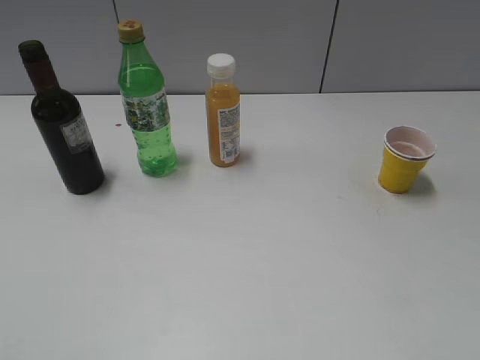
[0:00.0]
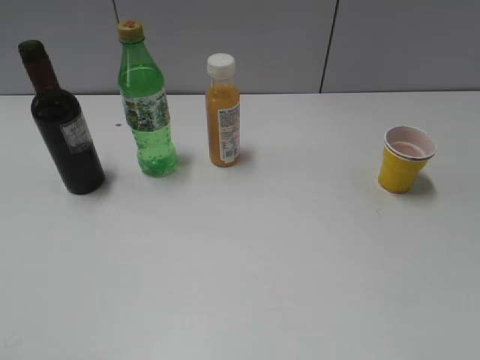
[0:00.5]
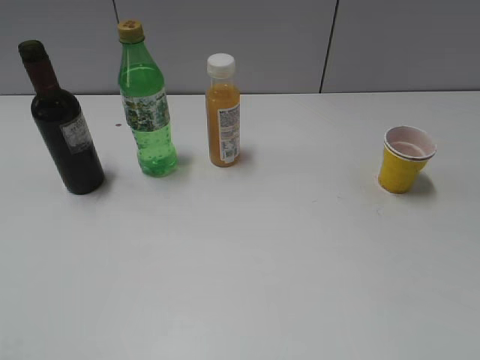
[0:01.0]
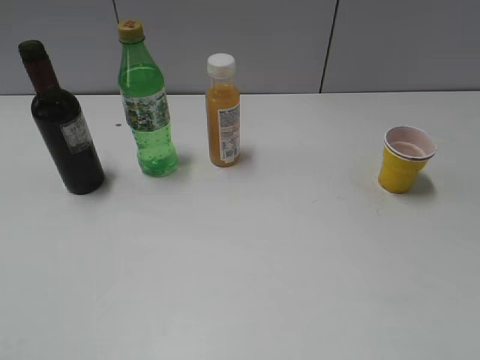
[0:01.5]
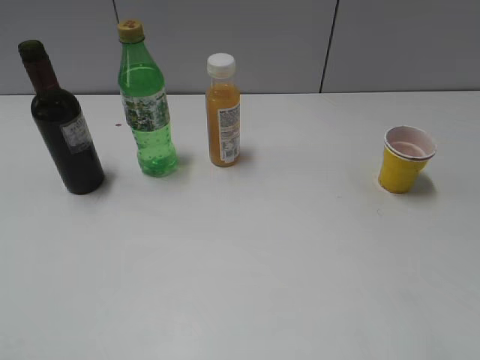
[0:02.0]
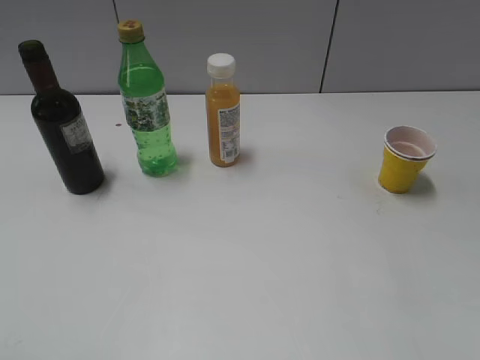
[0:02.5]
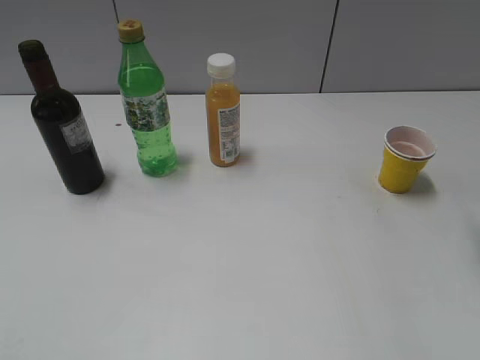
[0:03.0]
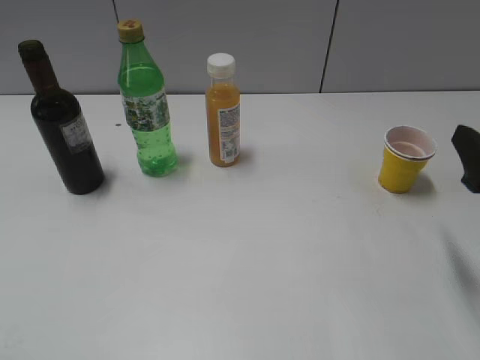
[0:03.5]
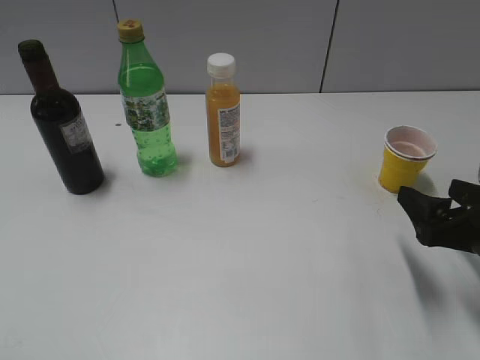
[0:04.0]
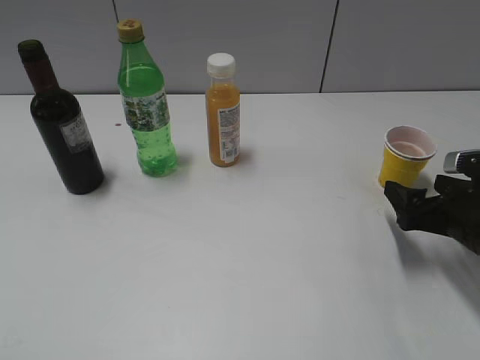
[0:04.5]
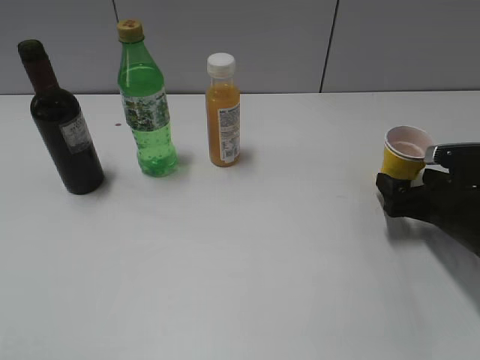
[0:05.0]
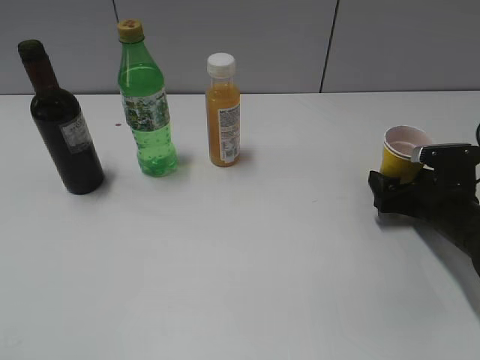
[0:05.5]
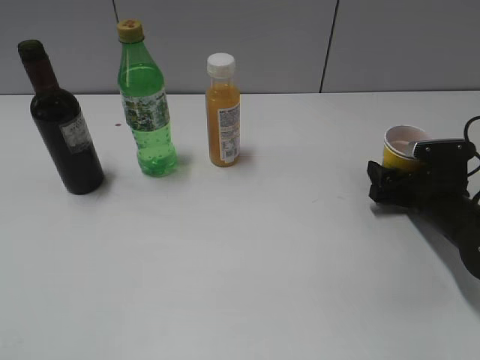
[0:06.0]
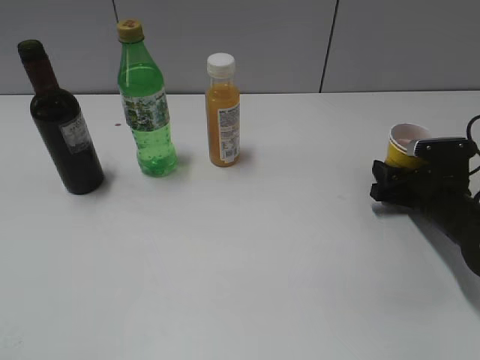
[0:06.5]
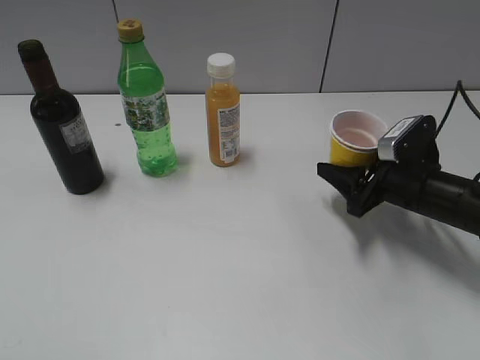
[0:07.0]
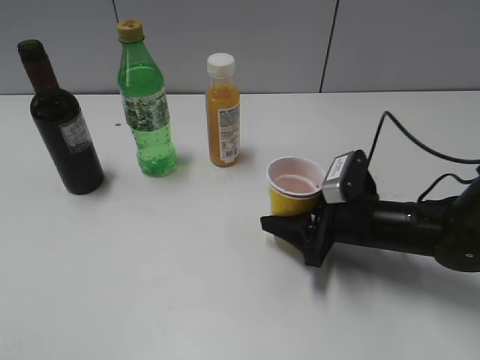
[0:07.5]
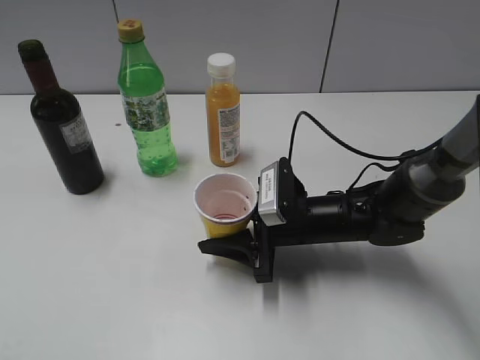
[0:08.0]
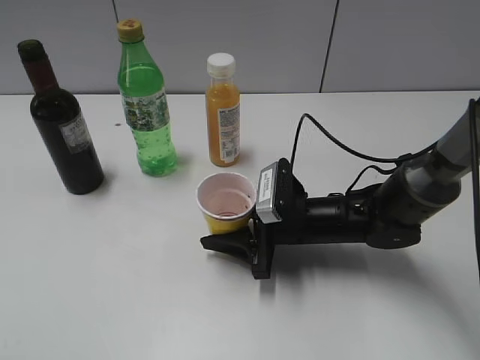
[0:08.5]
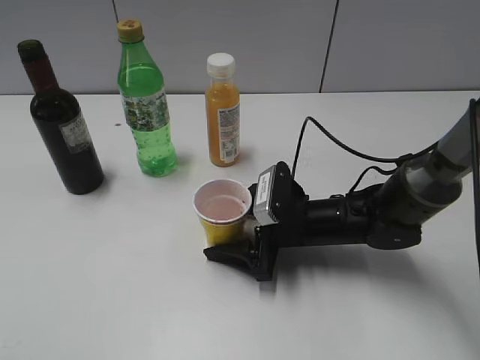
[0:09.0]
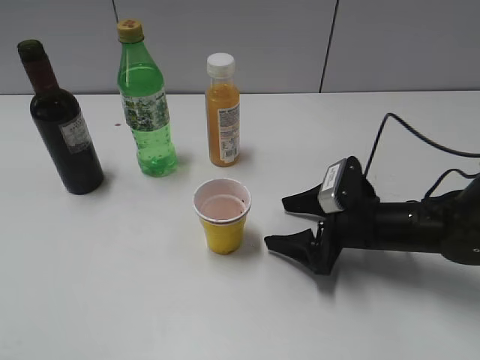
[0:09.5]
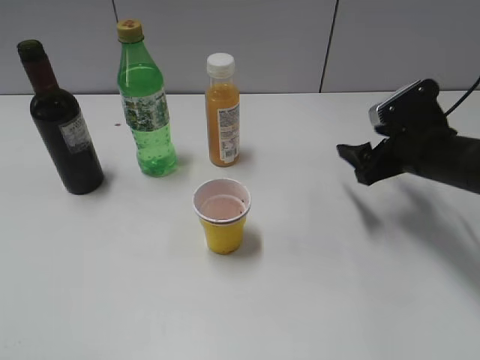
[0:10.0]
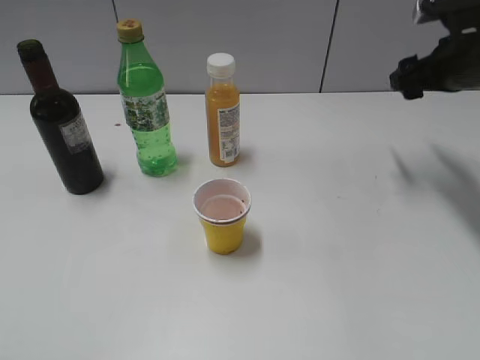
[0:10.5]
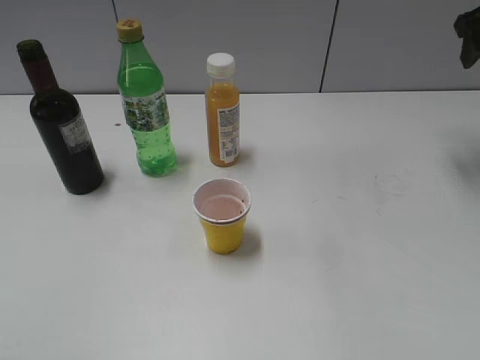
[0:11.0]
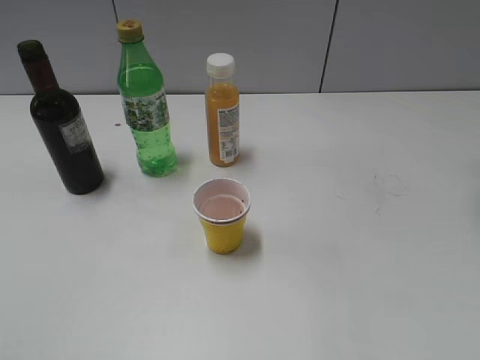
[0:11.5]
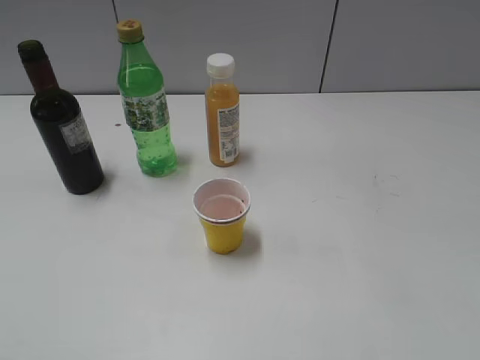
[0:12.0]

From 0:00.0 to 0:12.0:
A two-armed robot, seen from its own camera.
Step, from 0:01.5 to 0:06.0: Grasp the yellow paper cup with right gripper.
Step, from 0:07.0 to 0:09.0: Place the yellow paper cup on the table with right gripper.
From 0:02.0 to 0:04.0: The right gripper heads downward and forward, covering about 25 cm.
From 0:04.0 to 0:06.0: The right gripper is displaced forward and downward by some 15 cm.
From 0:06.0 to 0:08.0: The right gripper shifts some 20 cm to the left, and closes.
From 0:08.0 to 0:10.0: The right gripper travels to the right and upward by some 15 cm, and opens up.
From 0:10.0 to 0:12.0: The right gripper shifts approximately 25 cm upward, backward and to the right.

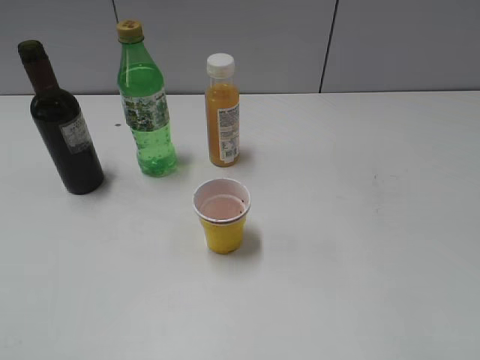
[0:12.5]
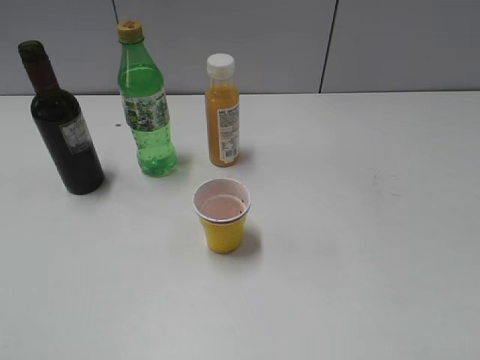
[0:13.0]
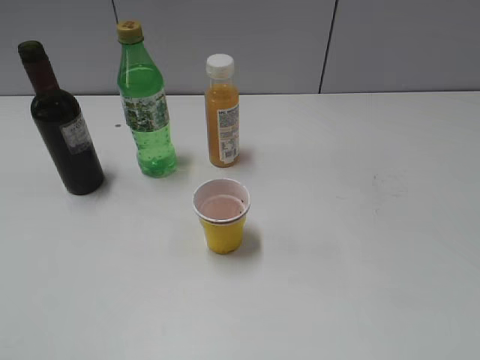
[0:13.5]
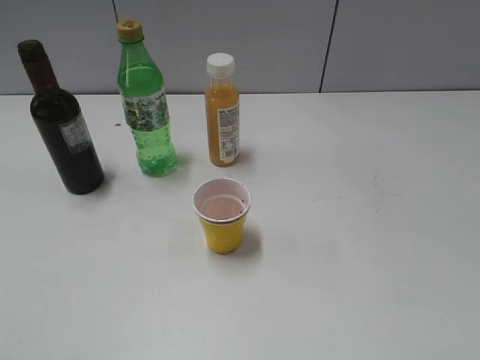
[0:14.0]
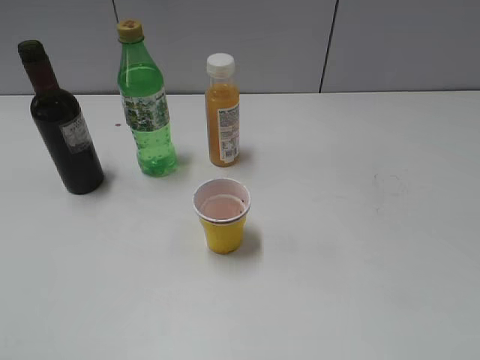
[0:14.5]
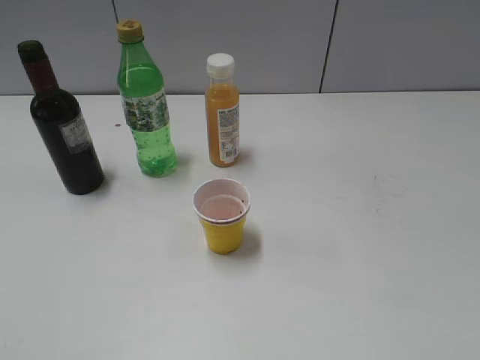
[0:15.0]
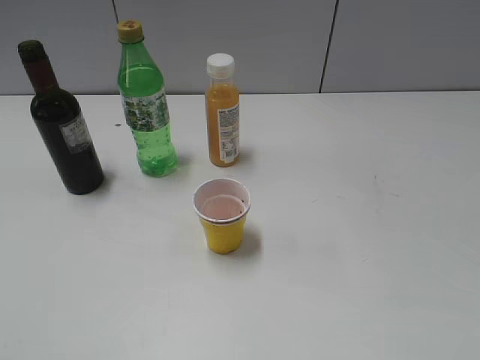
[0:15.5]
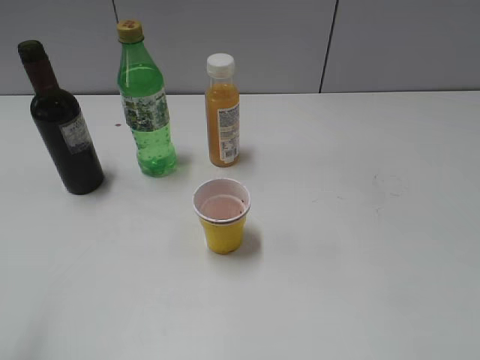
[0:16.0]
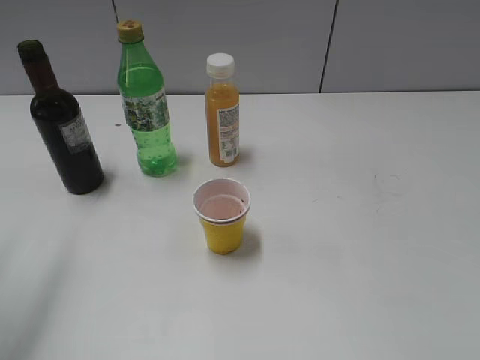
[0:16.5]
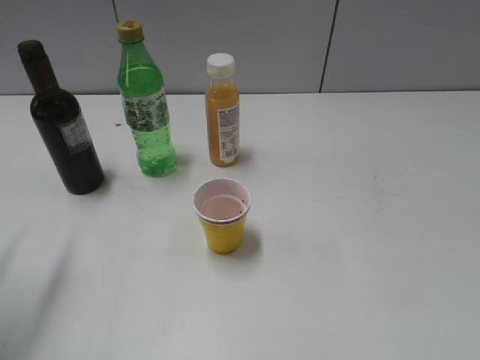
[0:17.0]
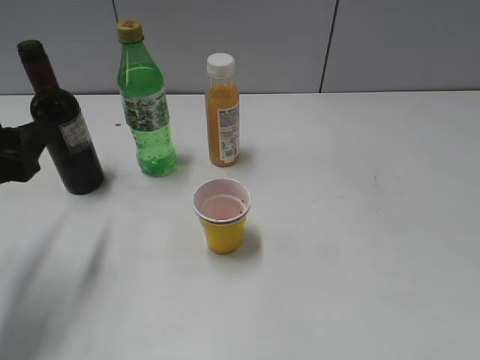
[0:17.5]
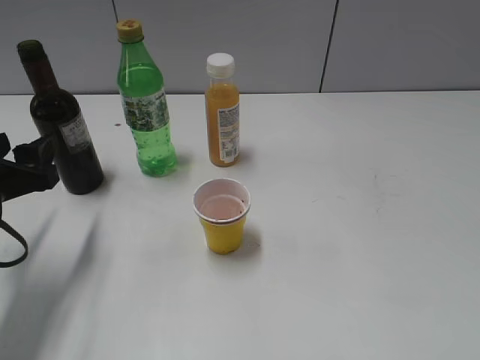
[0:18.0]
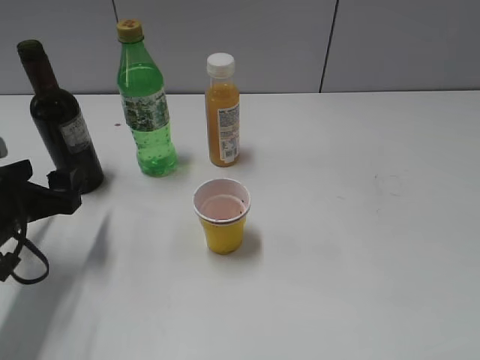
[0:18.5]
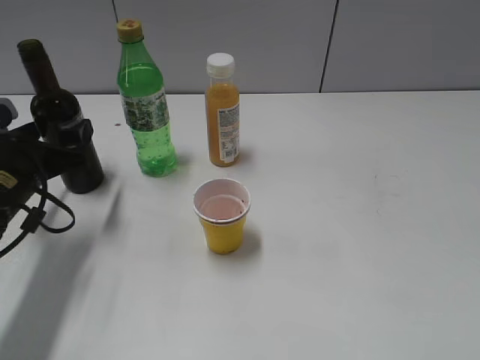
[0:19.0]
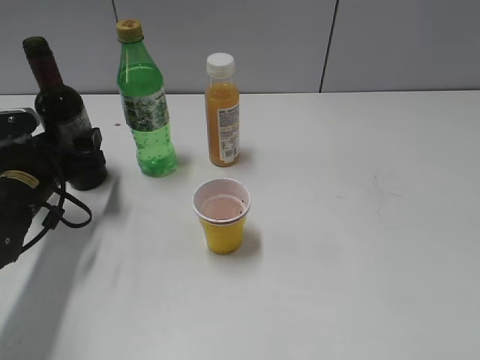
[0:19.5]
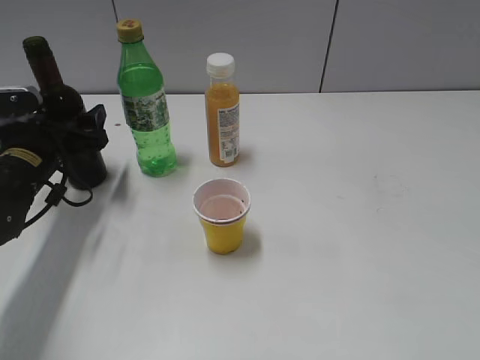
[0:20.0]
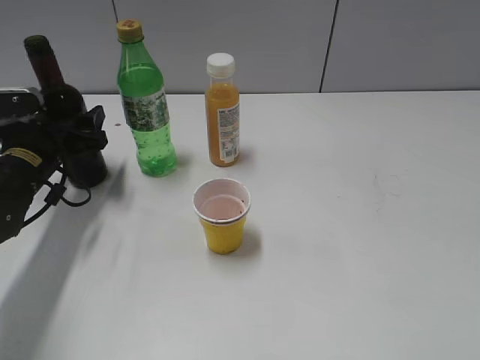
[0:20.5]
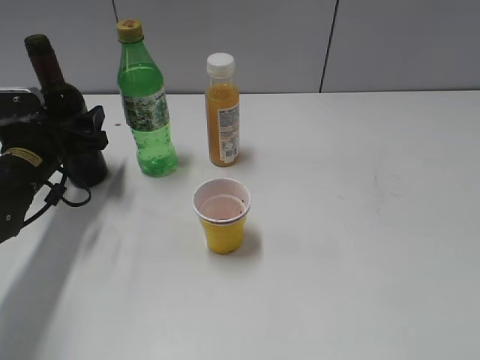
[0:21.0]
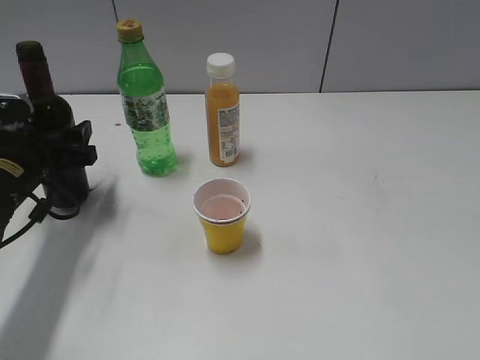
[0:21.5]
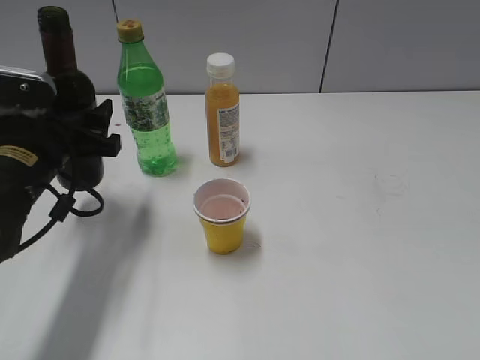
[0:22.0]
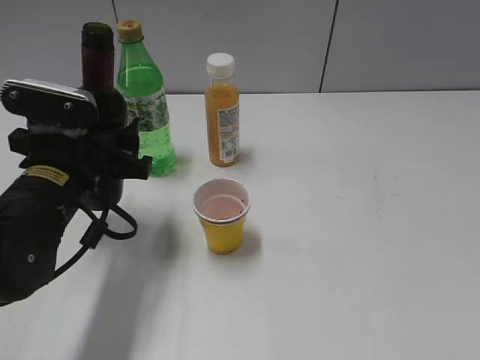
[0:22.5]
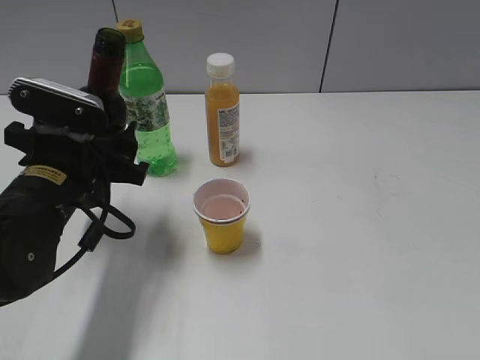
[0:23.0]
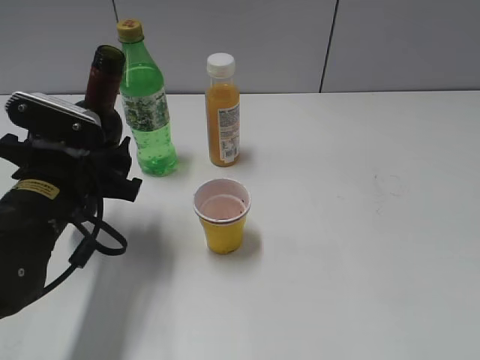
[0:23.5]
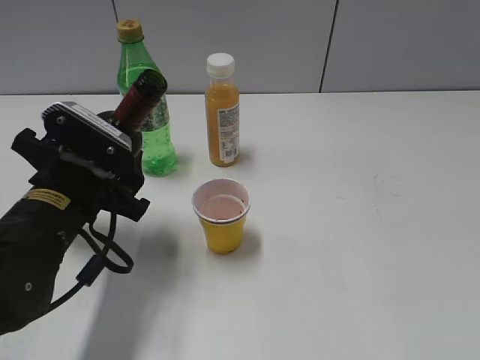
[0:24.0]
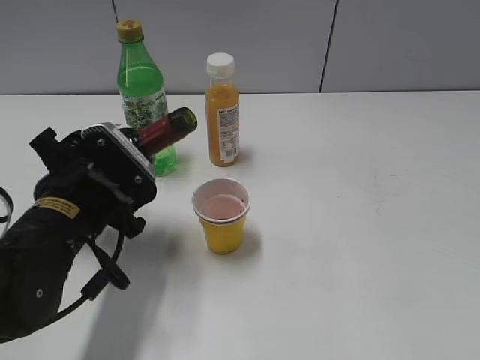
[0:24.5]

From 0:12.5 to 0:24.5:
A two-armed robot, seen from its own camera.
Step, from 0:12.5 to 0:21.0: Grasp the bottle with red wine with left gripper.
From 0:14.5 to 0:16.5: The left gripper travels forward by approximately 20 cm.
From 0:16.5 to 0:18.5: The left gripper heads downward, covering some 20 cm, and opens up.
From 0:18.5 to 0:20.5: The left gripper is displaced forward by some 10 cm, and closes.
From 0:20.5 to 0:22.5: The left gripper goes some 15 cm backward, to the right and upward.

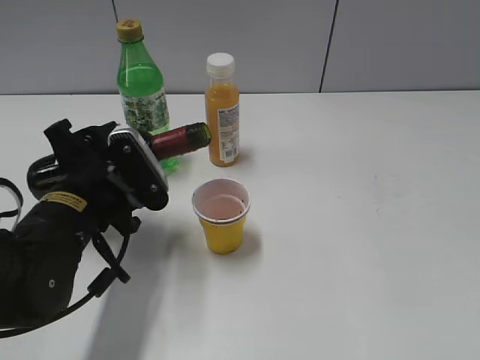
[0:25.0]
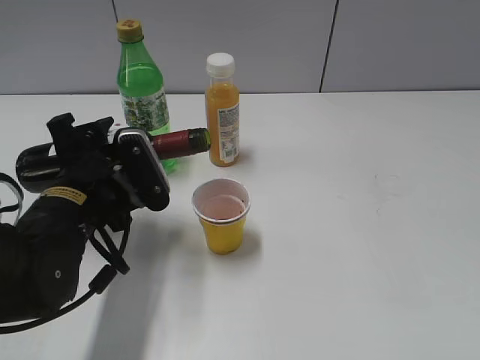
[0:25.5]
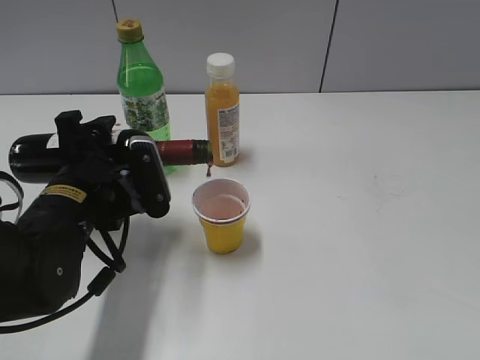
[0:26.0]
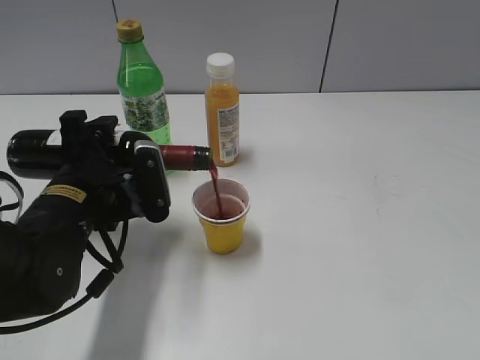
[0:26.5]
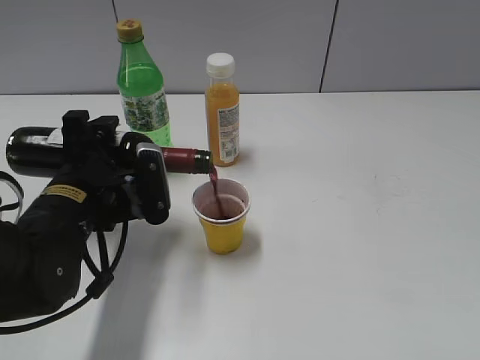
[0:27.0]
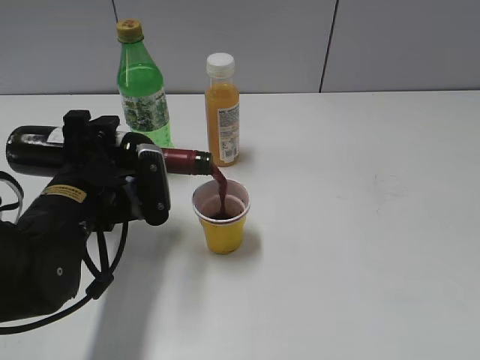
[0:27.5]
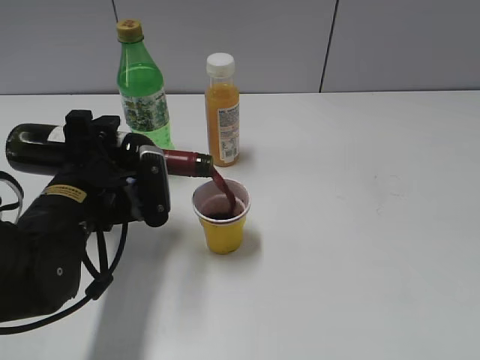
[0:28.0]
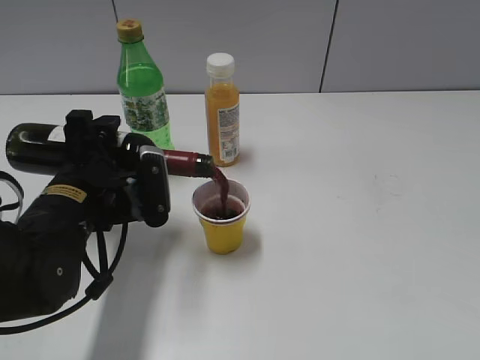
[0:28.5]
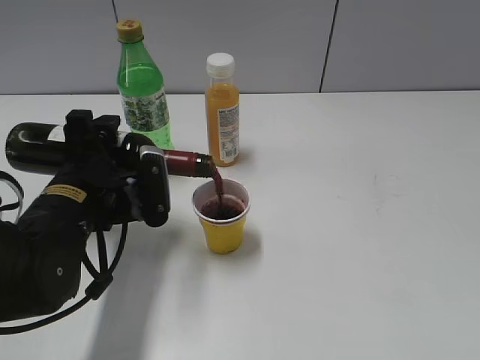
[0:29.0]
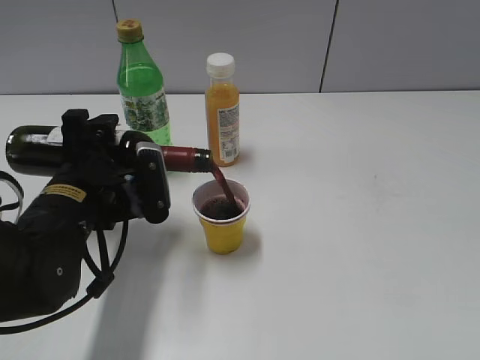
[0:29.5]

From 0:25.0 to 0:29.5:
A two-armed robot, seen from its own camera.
From 0:27.0 to 0:29.5: The two grippers keep their place.
